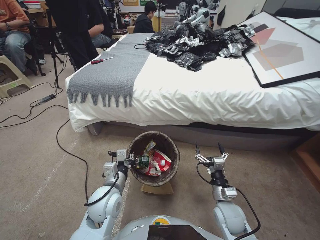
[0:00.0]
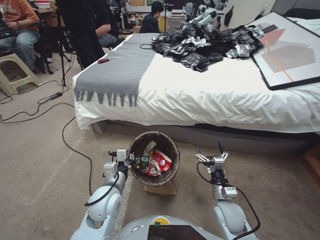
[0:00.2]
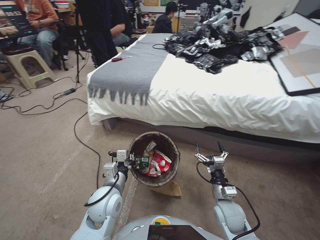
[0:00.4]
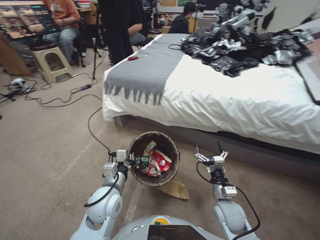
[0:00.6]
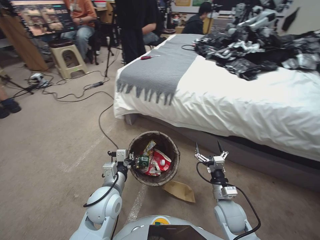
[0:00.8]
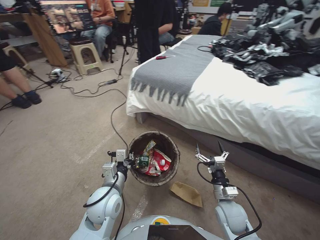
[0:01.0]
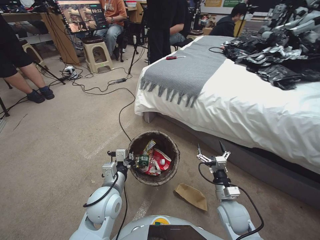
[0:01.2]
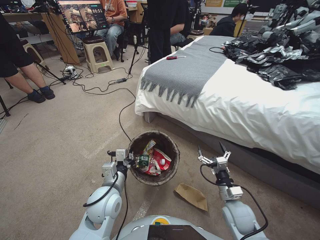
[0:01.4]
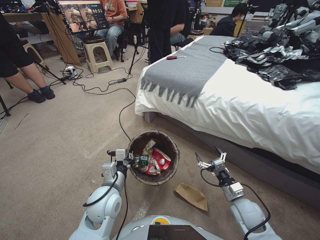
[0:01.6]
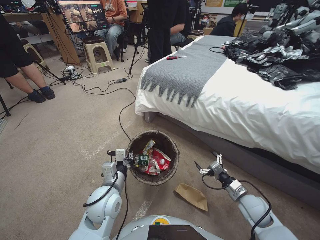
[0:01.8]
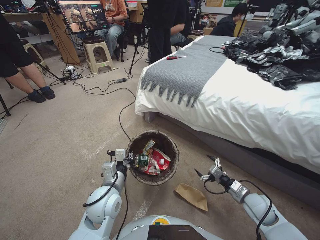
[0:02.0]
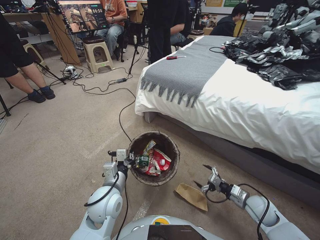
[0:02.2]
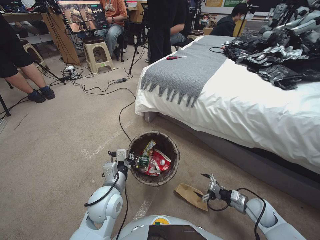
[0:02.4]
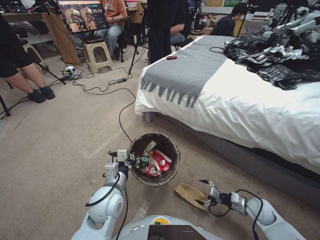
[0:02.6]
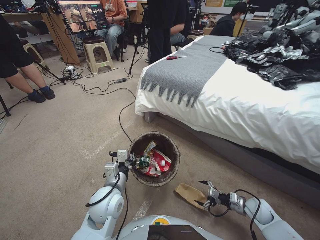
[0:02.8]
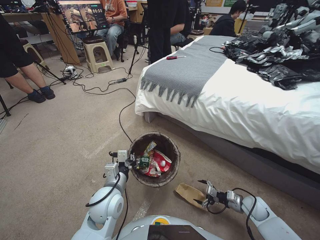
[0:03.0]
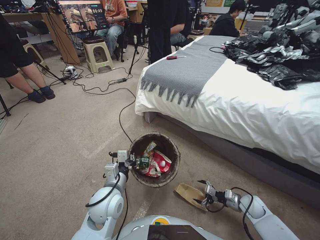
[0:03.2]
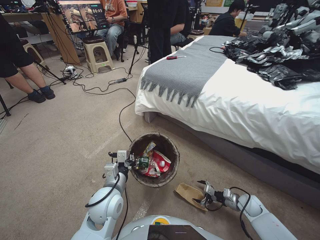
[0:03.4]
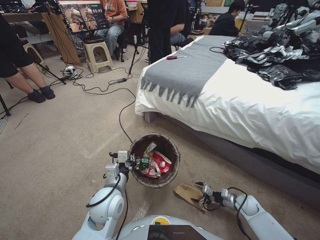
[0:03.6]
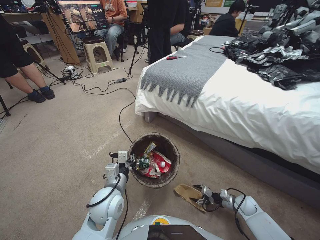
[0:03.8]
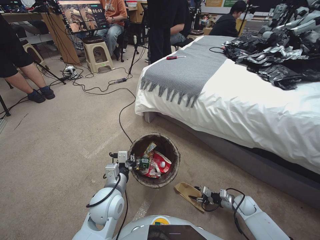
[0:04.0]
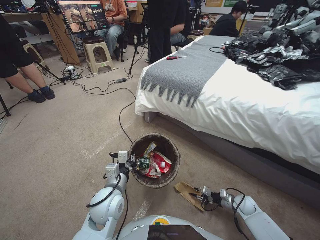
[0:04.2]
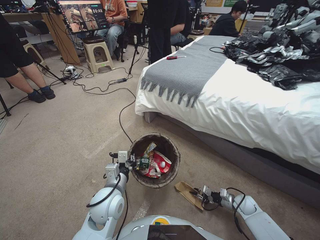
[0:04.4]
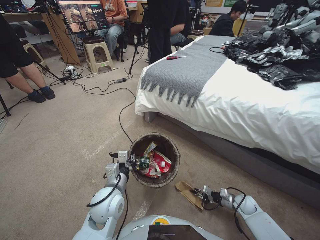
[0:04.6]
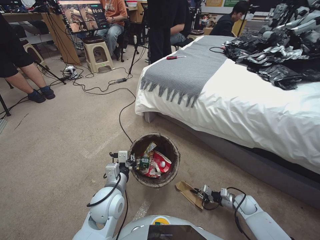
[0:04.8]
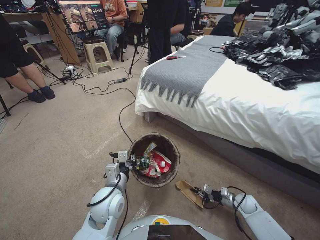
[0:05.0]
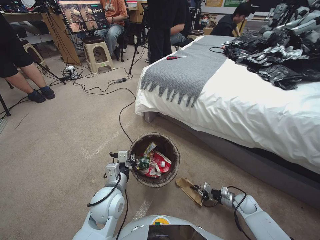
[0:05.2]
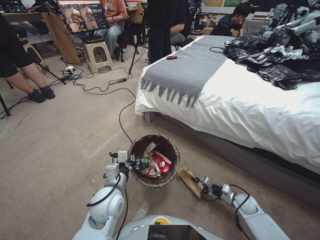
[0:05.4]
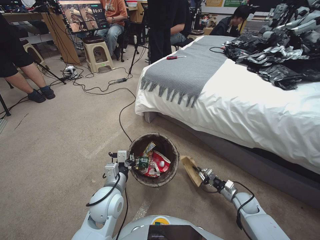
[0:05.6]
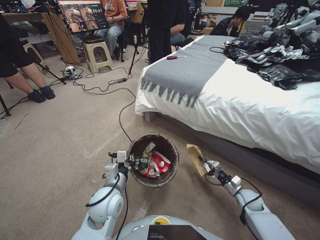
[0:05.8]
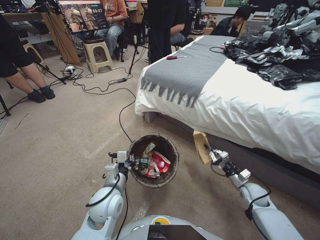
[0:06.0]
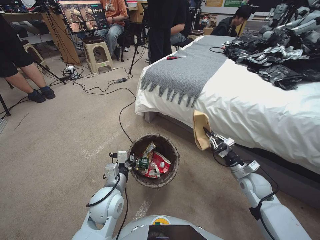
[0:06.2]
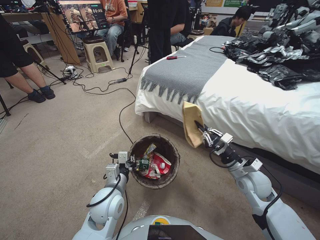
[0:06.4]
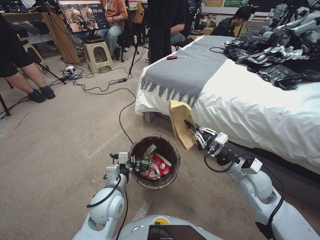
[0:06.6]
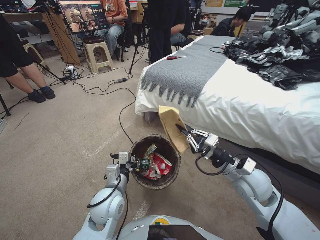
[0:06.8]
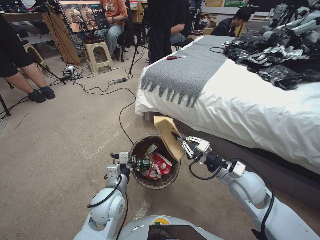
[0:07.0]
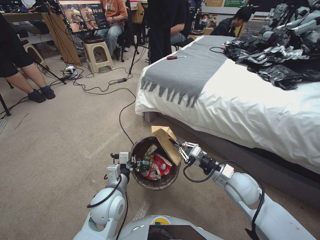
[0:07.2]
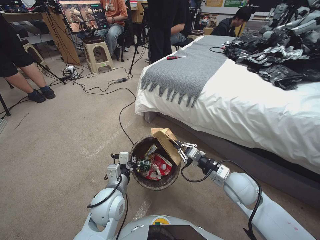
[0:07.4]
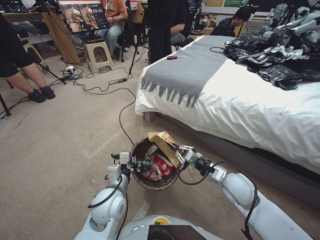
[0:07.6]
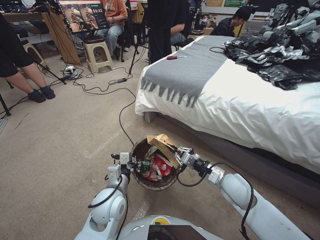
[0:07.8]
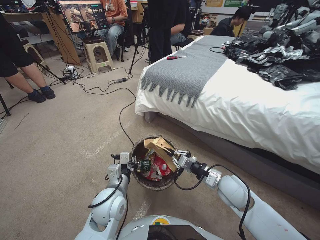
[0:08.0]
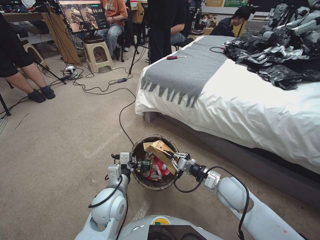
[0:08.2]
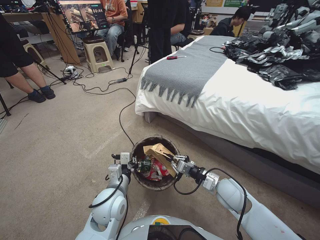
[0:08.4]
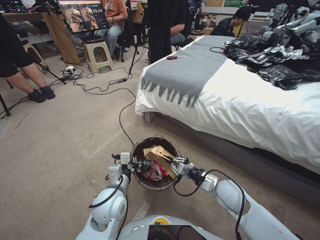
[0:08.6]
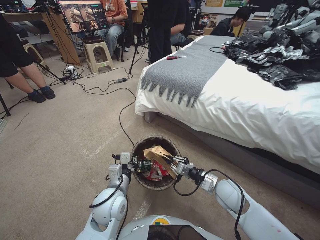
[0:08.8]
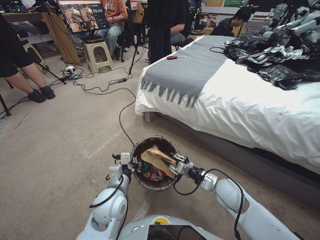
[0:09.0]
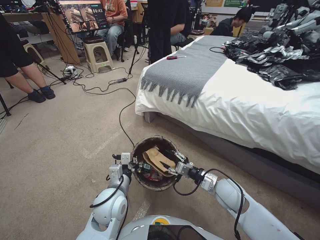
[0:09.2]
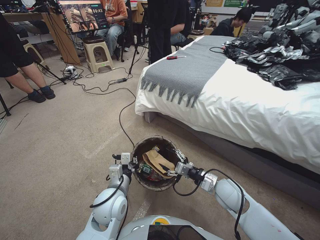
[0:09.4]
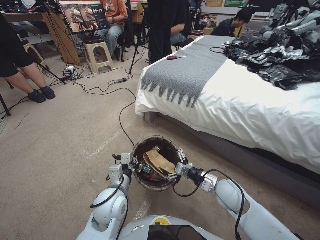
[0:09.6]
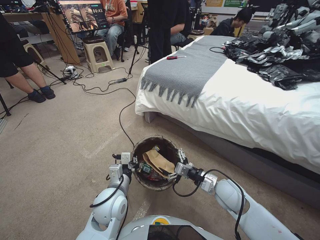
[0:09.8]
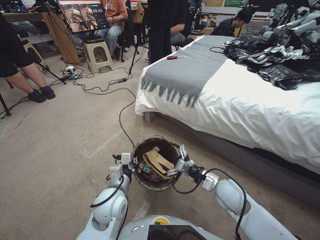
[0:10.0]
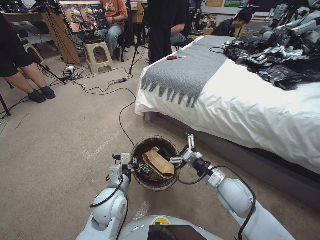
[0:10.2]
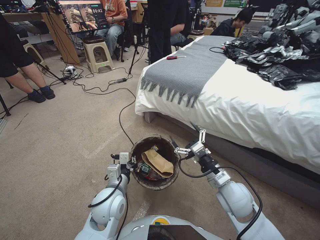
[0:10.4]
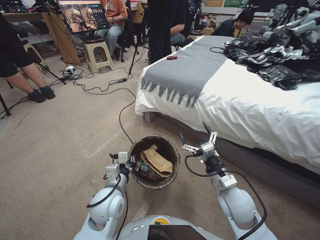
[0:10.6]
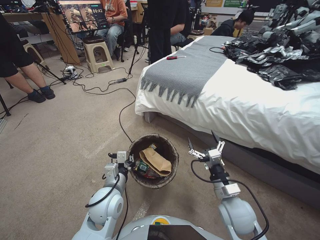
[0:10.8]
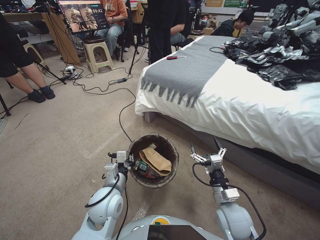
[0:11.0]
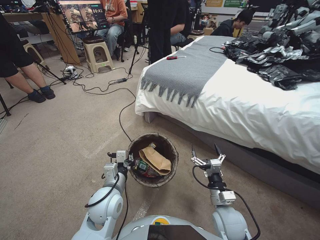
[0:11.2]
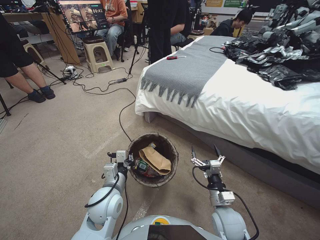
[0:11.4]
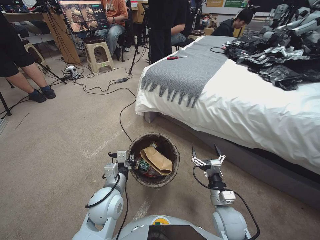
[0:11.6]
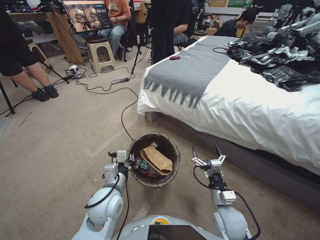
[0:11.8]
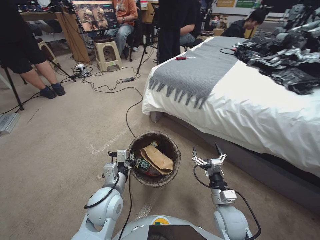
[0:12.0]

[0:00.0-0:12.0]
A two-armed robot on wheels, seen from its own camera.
Task of the whole recording: Pick up the trash bin, then pick up the garbage from the floor and place it into the trash bin.
0:00.0 to 0:01.6: The right gripper heads to the right, covering some 5 cm.
0:01.6 to 0:03.0: The right gripper is displaced to the right and downward by approximately 15 cm.
0:03.0 to 0:04.4: The right gripper is displaced downward by approximately 5 cm, and closes up.
0:04.4 to 0:06.0: The right gripper is displaced upward by roughly 10 cm.
0:06.0 to 0:07.6: The right gripper shifts roughly 20 cm upward and to the left.
0:07.6 to 0:09.0: The grippers move only a little.
0:09.0 to 0:10.4: The right gripper opens its fingers.
0:10.4 to 0:12.0: The right gripper travels downward and backward by roughly 10 cm.

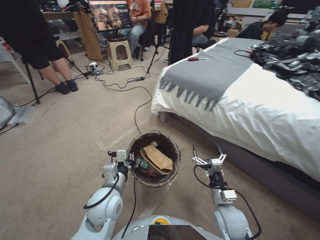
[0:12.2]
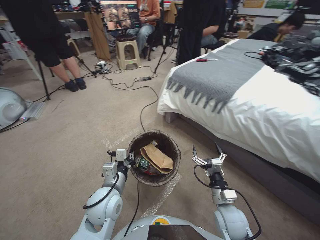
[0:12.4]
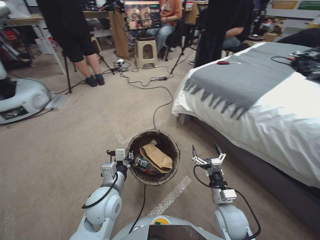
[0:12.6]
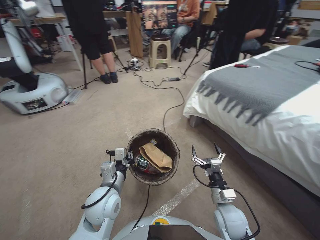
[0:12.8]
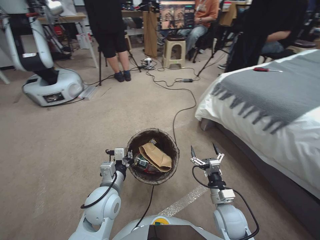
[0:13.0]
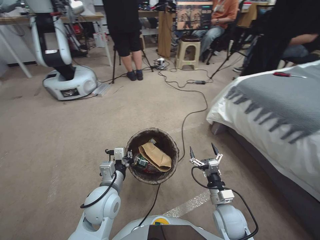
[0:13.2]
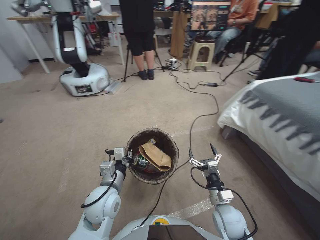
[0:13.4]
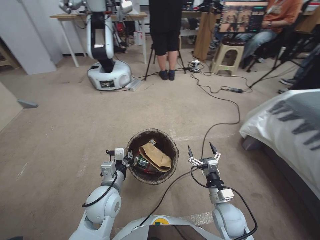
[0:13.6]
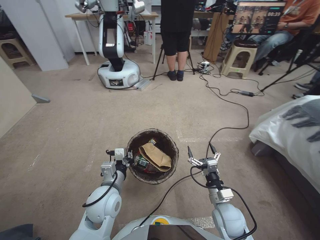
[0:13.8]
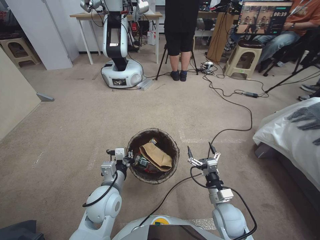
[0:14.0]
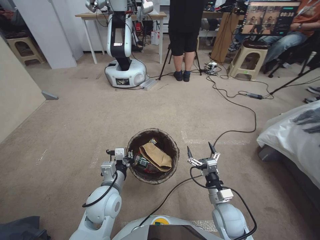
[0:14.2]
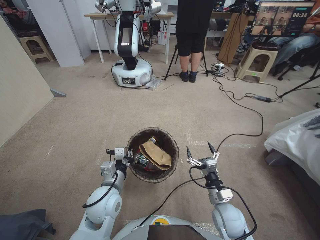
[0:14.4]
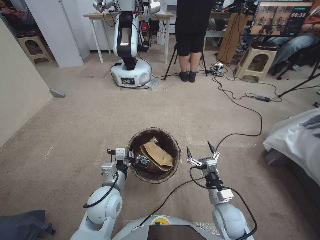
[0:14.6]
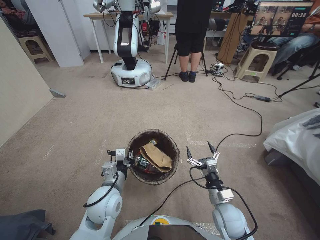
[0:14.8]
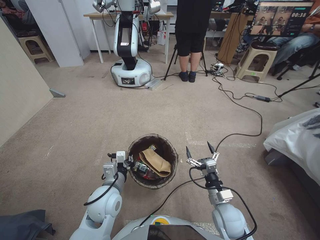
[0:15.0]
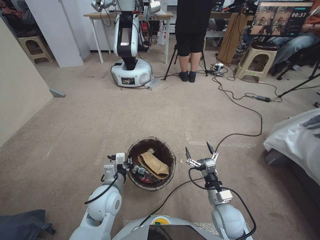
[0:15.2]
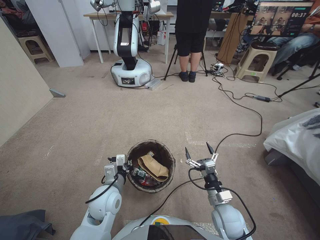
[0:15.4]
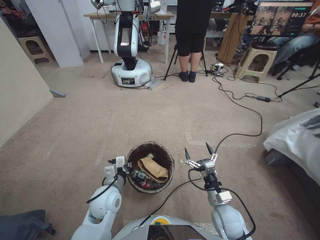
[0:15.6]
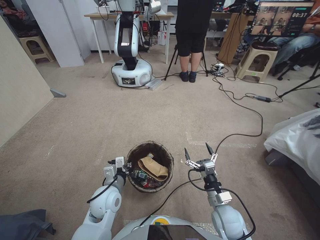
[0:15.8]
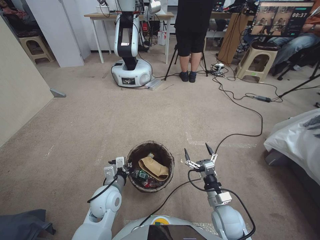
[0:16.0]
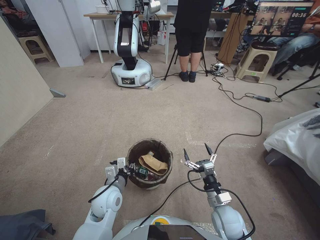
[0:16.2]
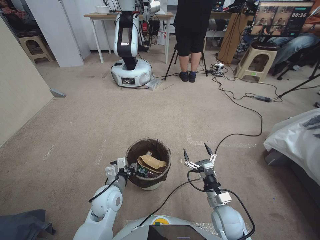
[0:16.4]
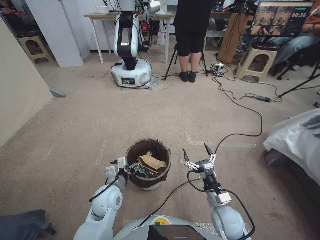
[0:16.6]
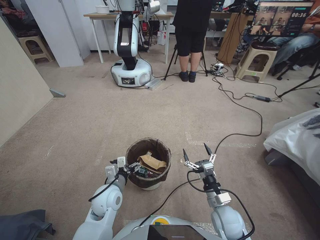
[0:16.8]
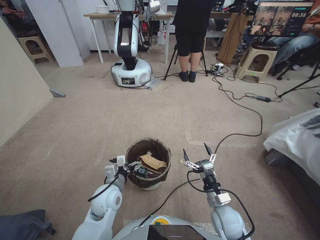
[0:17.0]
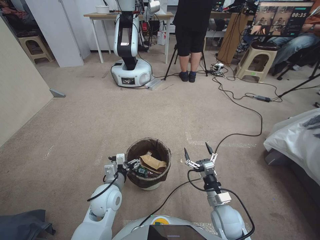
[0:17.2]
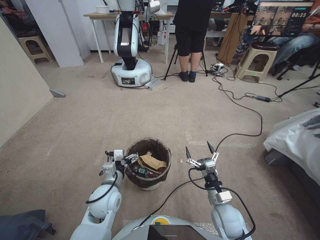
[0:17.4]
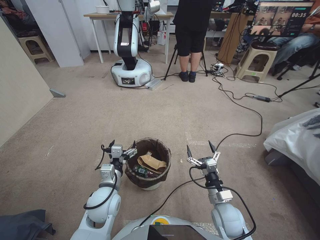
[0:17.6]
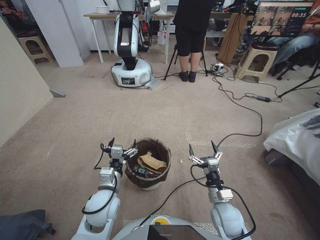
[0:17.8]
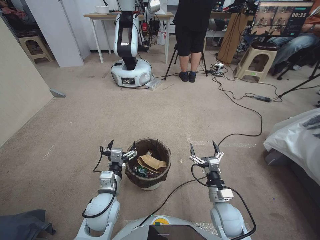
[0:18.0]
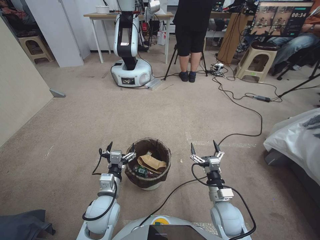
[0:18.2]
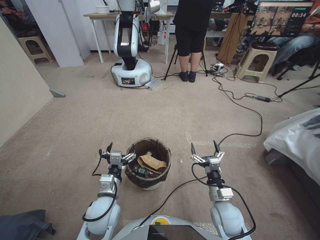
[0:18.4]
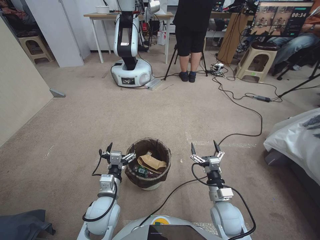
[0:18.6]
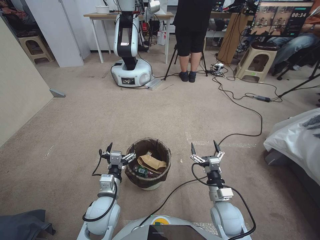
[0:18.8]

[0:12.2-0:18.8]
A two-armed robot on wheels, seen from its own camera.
Task of the whole recording: Pick up the trash bin, then pick up the garbage from the floor and place it into the trash bin.
0:15.4 to 0:17.2: The left gripper opens up.

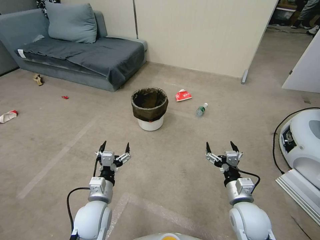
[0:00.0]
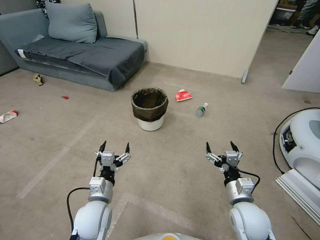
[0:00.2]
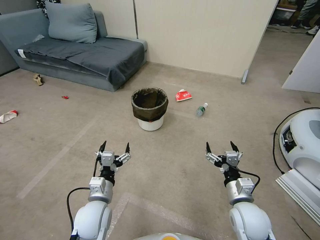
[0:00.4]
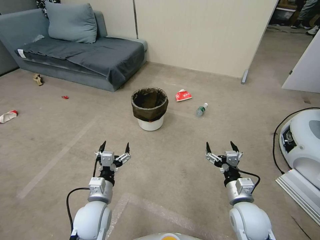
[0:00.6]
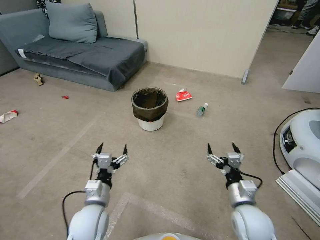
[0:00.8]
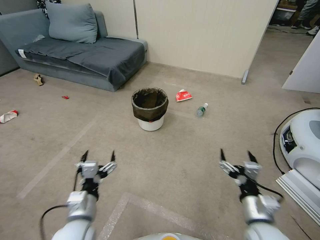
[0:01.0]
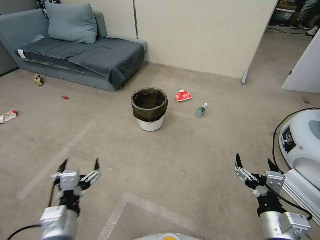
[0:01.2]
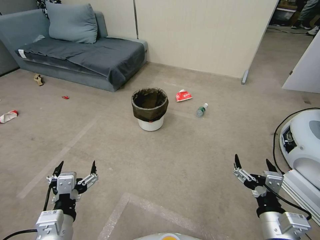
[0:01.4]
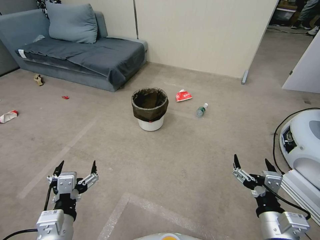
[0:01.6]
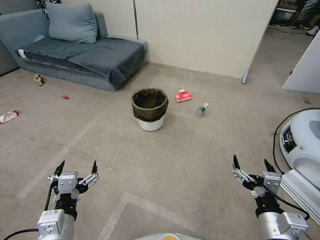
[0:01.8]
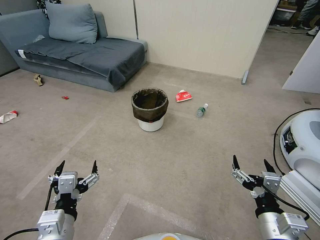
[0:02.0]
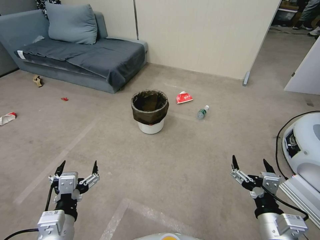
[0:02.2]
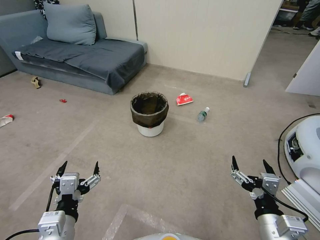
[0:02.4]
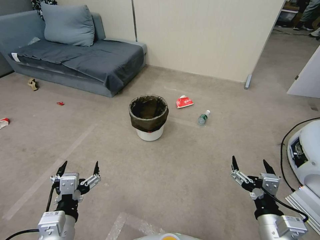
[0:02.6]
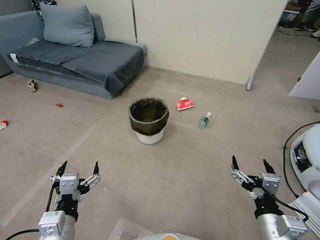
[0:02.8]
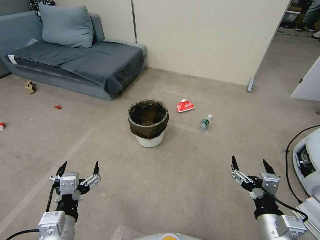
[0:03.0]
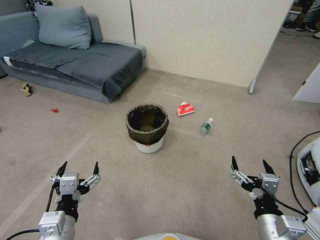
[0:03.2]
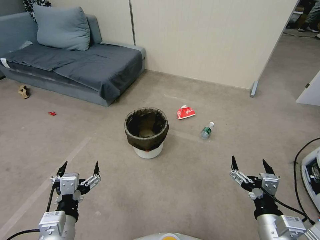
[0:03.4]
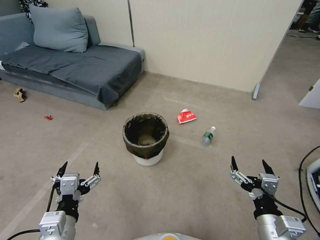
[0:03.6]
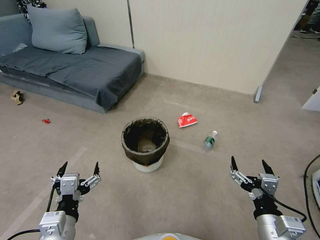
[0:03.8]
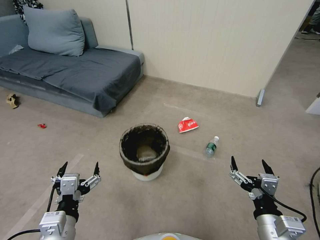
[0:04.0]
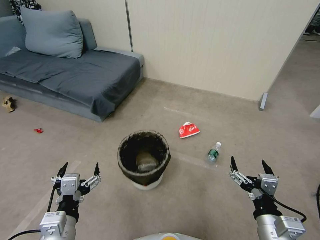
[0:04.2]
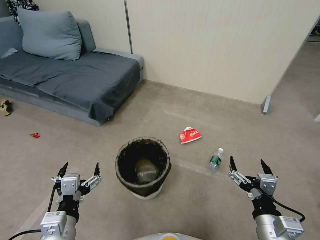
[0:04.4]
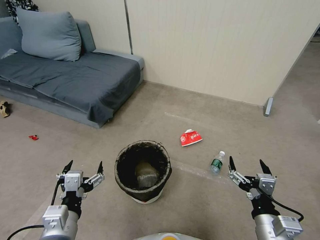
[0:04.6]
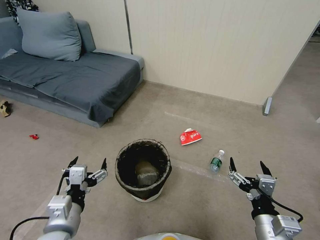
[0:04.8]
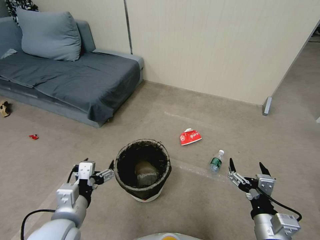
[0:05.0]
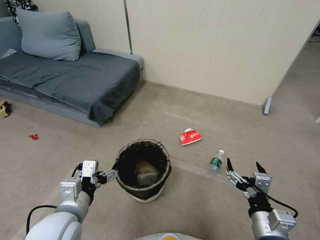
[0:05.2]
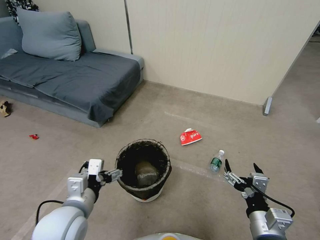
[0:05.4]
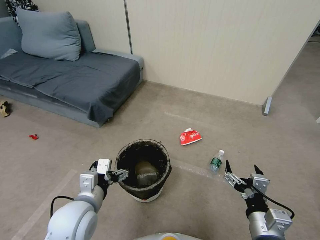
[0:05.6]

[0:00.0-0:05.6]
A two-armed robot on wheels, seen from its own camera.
Task of the whole recording: Pick up the trash bin, then pick up the garbage from the floor and place it into the trash bin.
0:04.2 to 0:05.6: The left gripper moves forward, roughly 10 cm.
